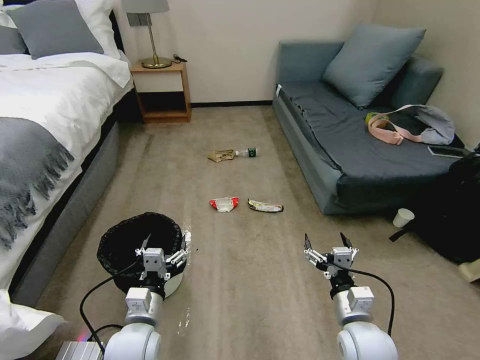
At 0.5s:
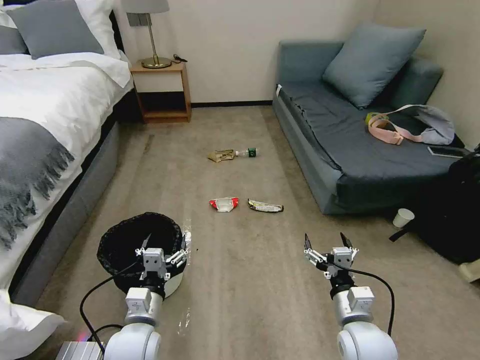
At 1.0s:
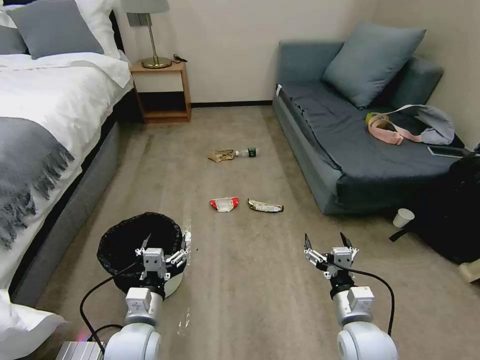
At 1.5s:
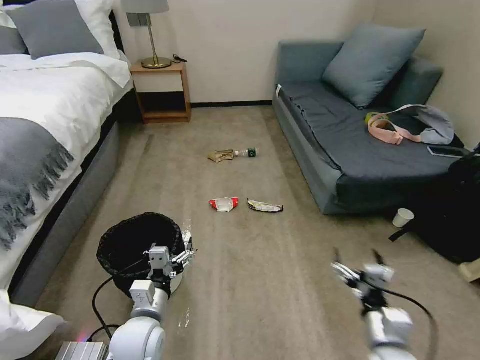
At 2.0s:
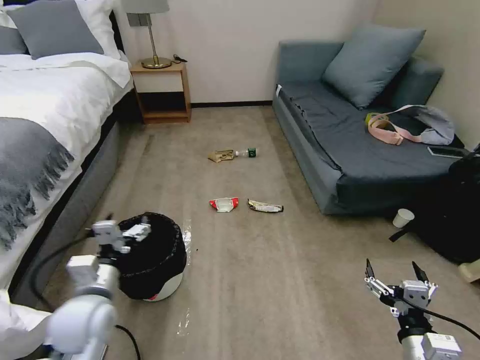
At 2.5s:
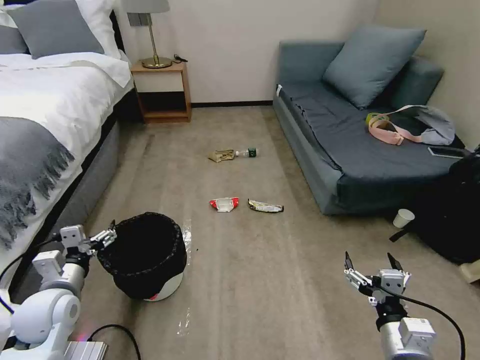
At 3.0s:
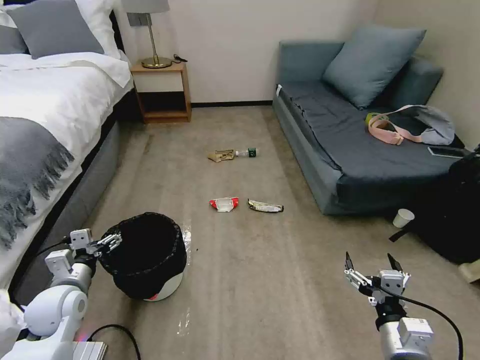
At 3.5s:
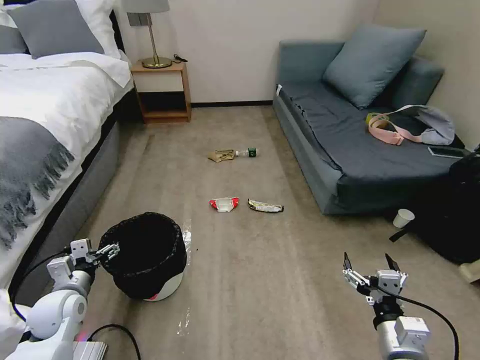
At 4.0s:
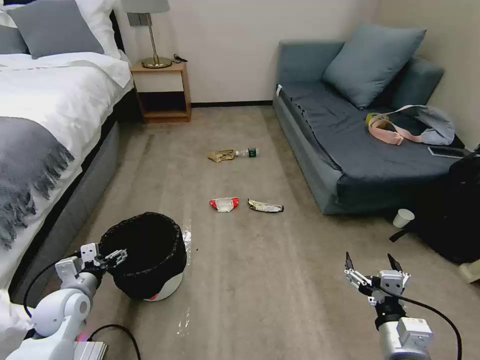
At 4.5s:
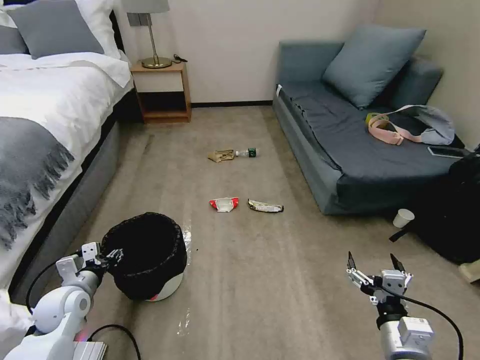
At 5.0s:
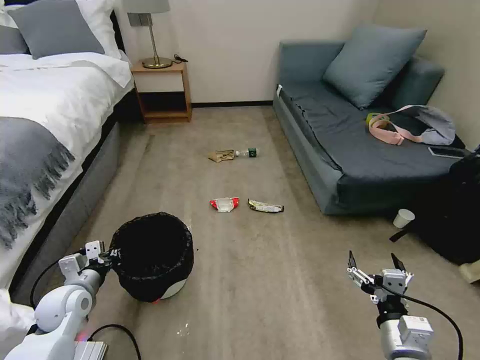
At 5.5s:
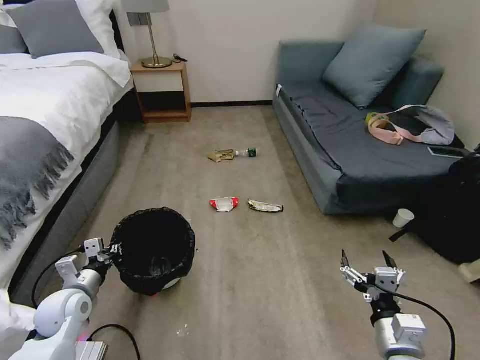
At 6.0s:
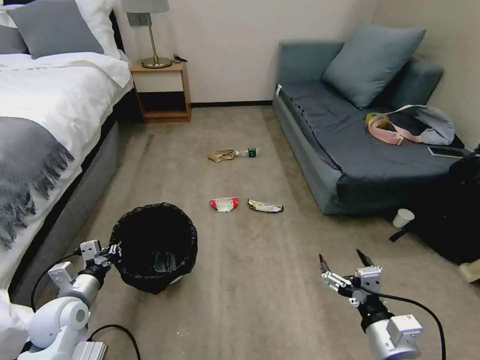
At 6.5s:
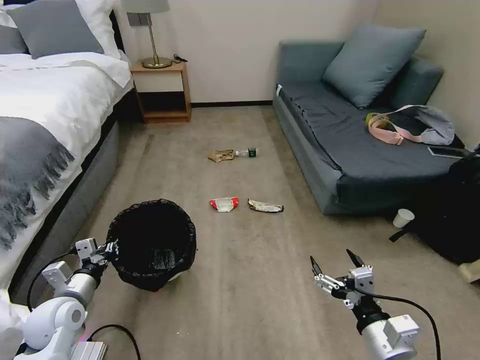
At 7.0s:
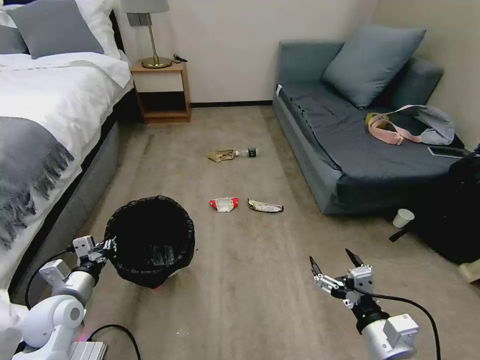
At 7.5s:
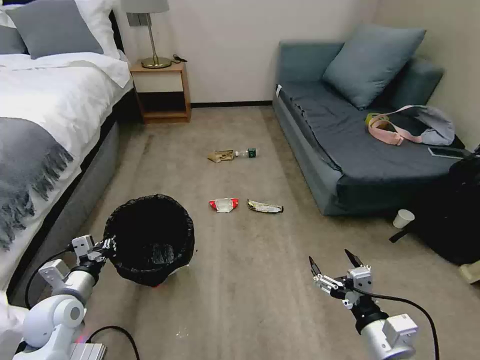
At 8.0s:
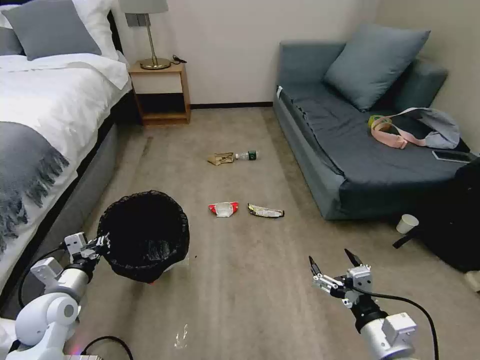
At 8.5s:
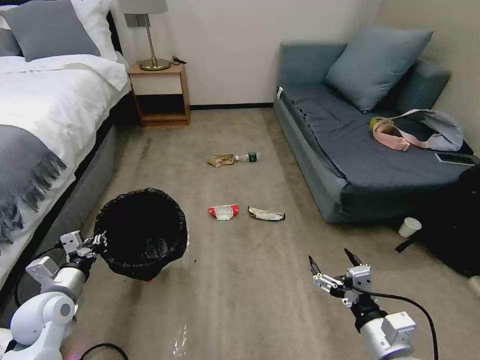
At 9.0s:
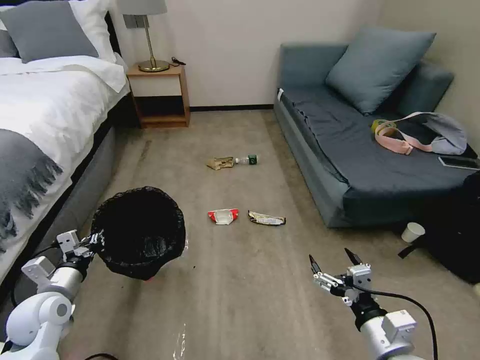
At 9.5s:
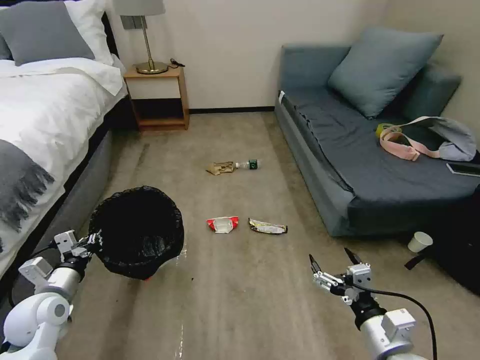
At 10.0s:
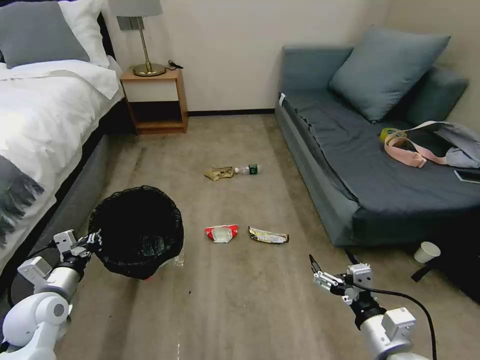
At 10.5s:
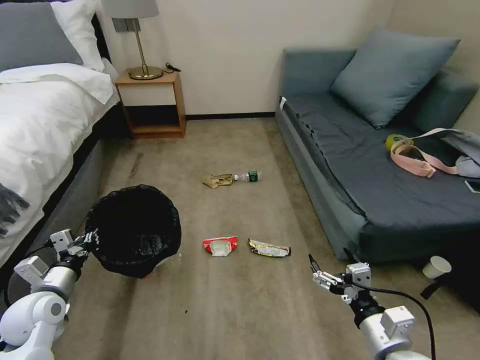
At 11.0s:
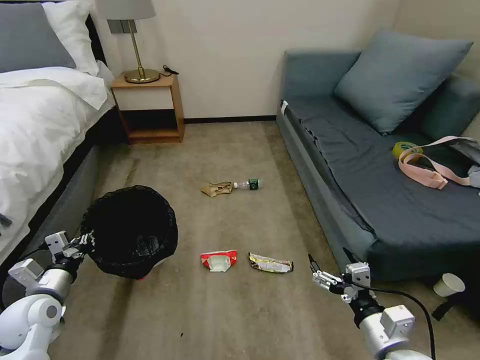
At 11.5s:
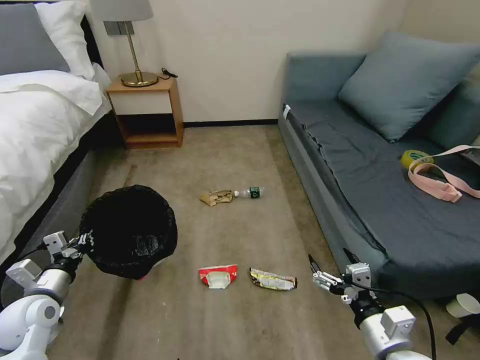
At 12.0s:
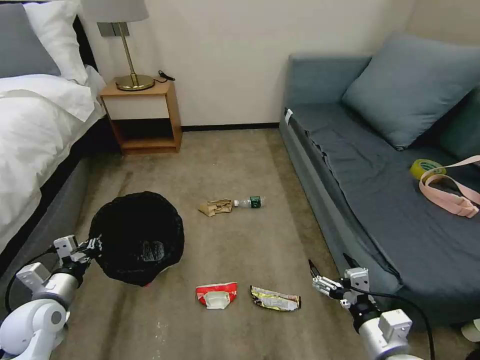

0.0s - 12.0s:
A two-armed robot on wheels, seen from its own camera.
Task of the whole recording: Pick up the trash bin, then pick up the garbage on the floor and place it into the trash bin.
2.0s - 4.0s: The left gripper moves to the left and downward, roughly 15 cm.
4.0s - 6.0s: The left gripper closes its fingers.
6.0s - 8.0s: The grippers make only small movements.

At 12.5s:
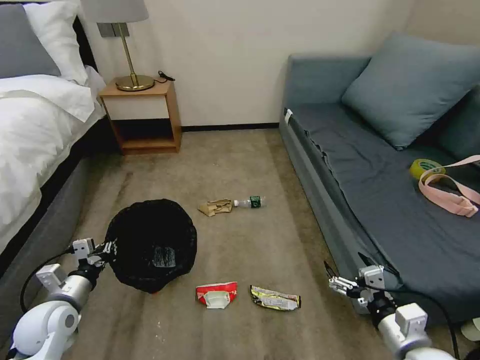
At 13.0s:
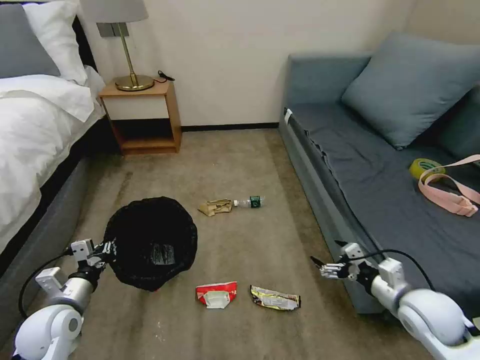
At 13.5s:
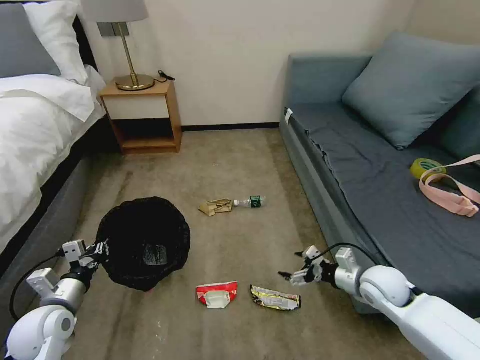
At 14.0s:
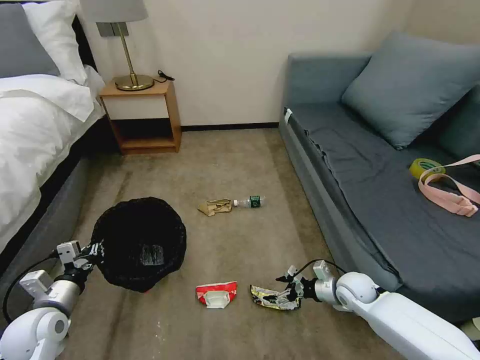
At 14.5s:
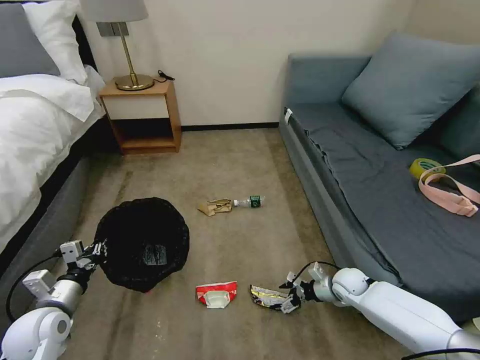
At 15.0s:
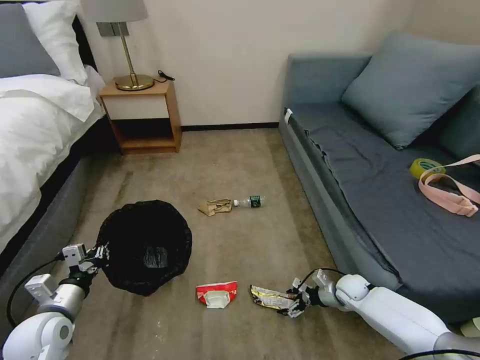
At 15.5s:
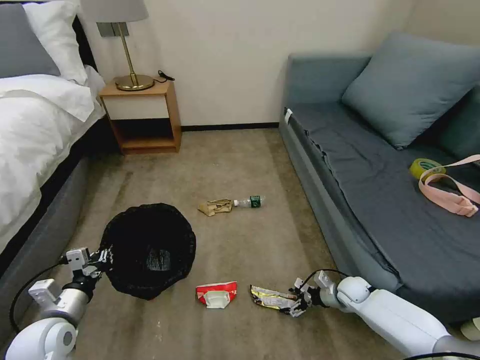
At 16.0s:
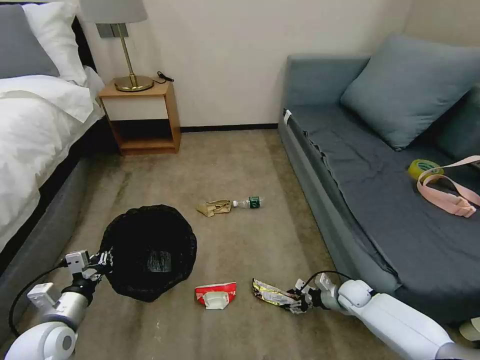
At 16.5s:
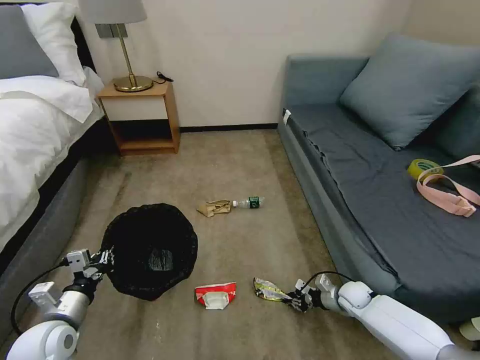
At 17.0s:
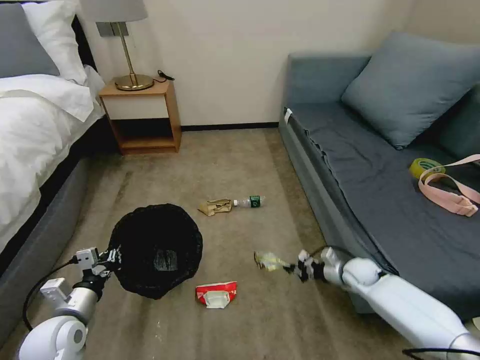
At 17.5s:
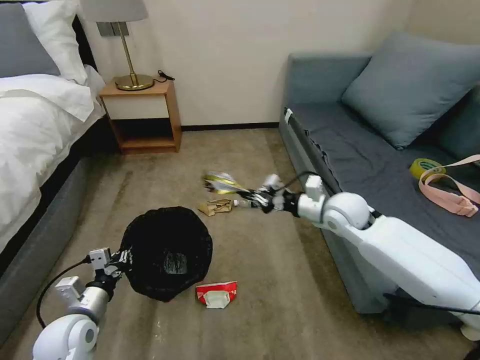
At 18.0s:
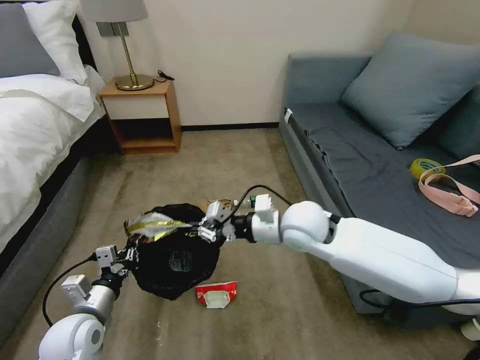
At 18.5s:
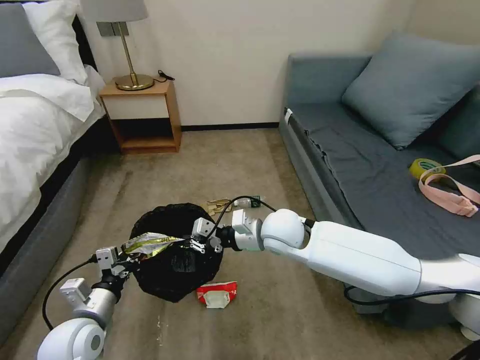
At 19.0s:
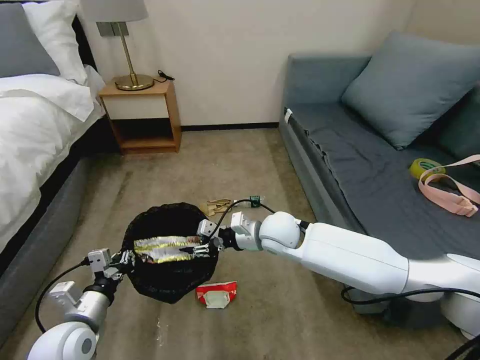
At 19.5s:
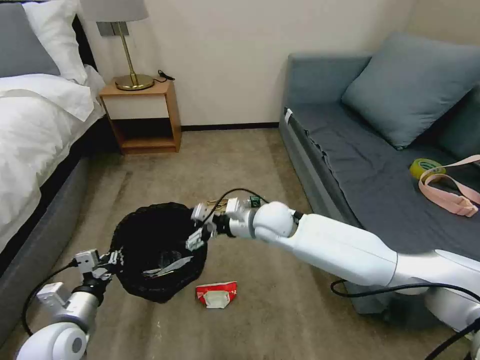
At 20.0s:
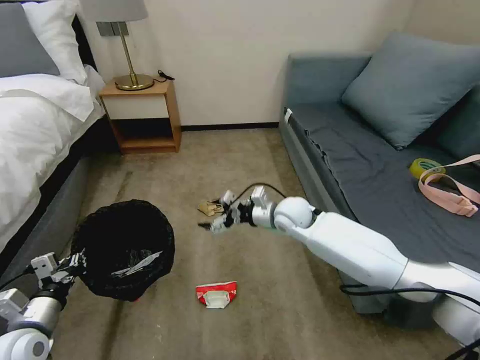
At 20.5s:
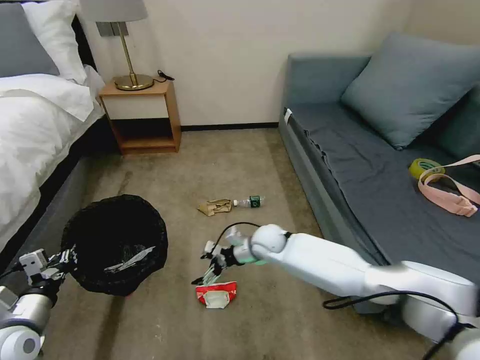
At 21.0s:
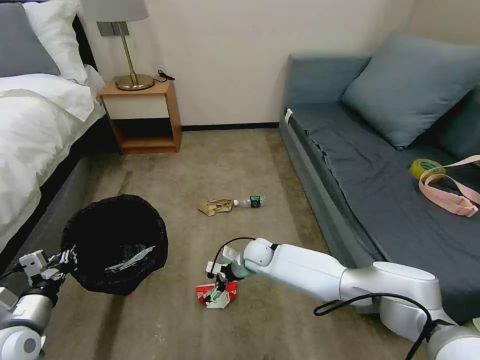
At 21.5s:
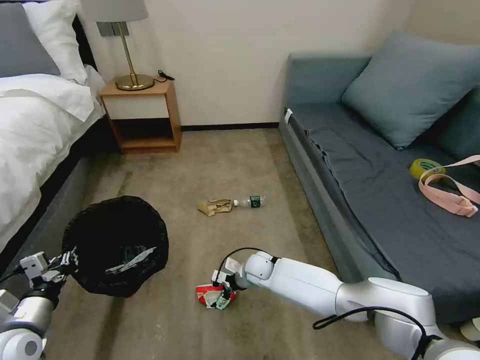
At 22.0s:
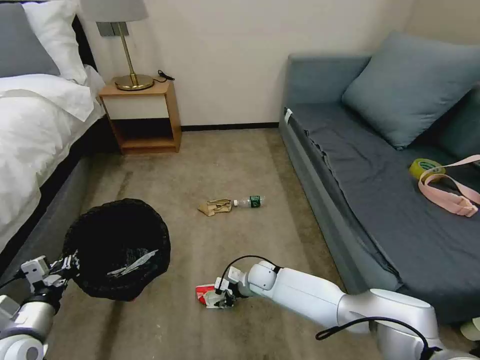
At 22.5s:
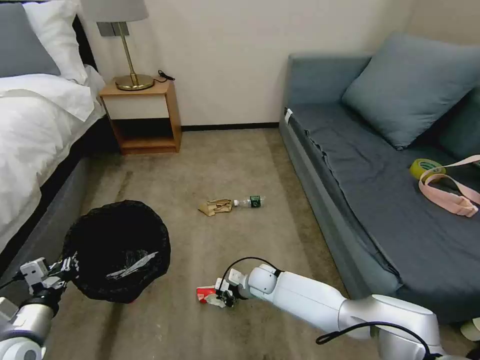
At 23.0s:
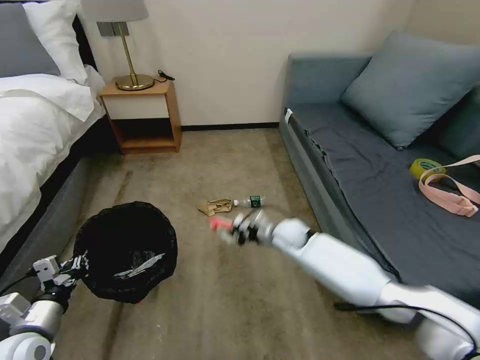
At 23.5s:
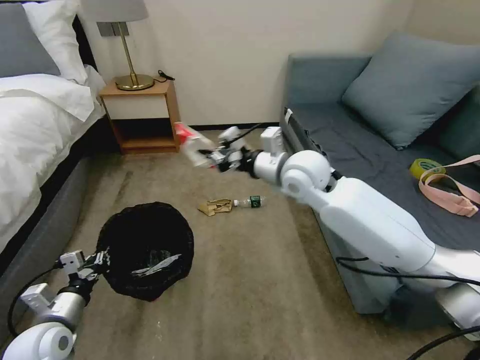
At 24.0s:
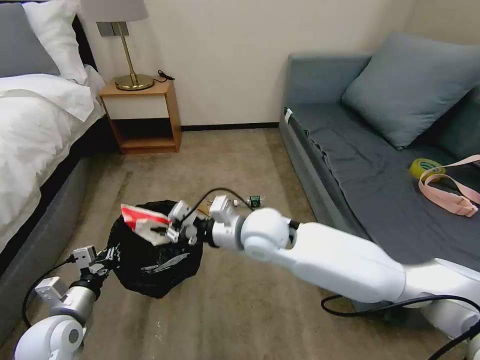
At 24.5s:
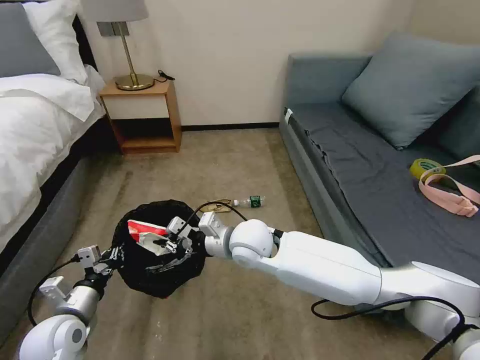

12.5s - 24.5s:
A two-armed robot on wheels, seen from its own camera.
Task of the whole recording: Pick up the trash bin, then pick up the garbage on the floor and place it into the trash bin.
12.5s - 14.5s: The right gripper travels forward and downward by some 30 cm.
14.5s - 16.5s: The right gripper is displaced downward by roughly 5 cm, and closes up.
16.5s - 18.5s: The right gripper shifts about 40 cm upward and to the left. Meanwhile the left gripper moves to the right, about 5 cm.
18.5s - 20.5s: The right gripper travels downward and forward by about 15 cm, and opens its fingers. The left gripper heads to the left, covering some 10 cm.
20.5s - 22.5s: The right gripper heads downward, covering some 15 cm, and closes its fingers.
22.5s - 24.5s: The right gripper goes approximately 25 cm upward, while the left gripper moves to the right, about 5 cm.

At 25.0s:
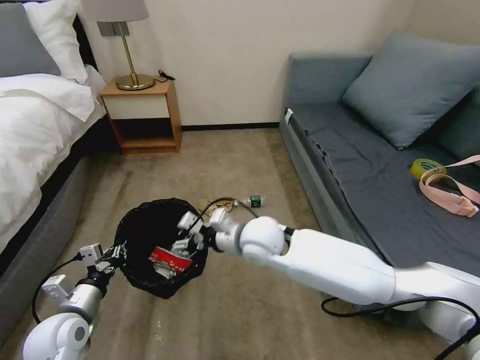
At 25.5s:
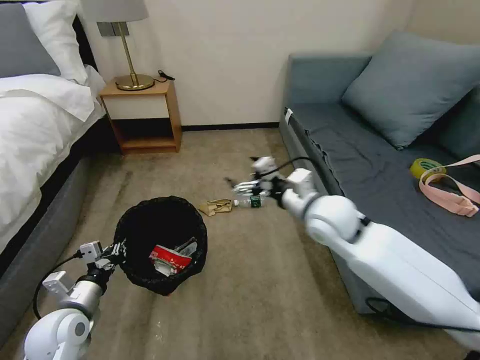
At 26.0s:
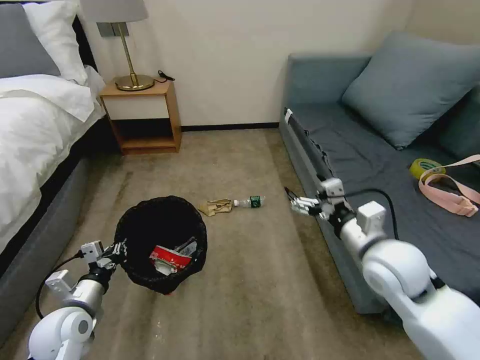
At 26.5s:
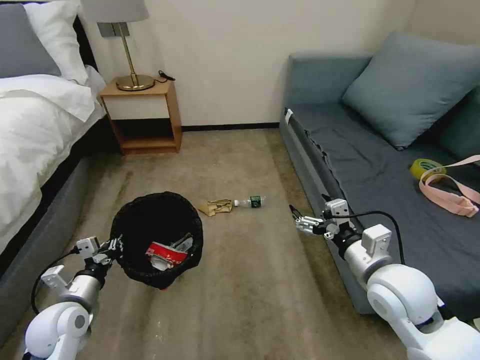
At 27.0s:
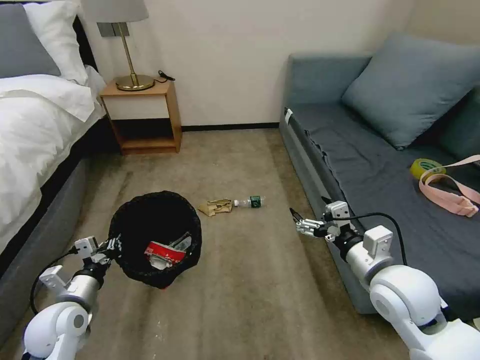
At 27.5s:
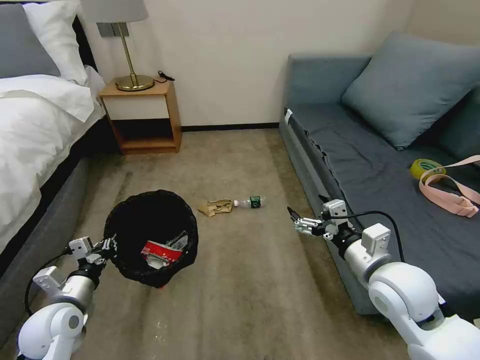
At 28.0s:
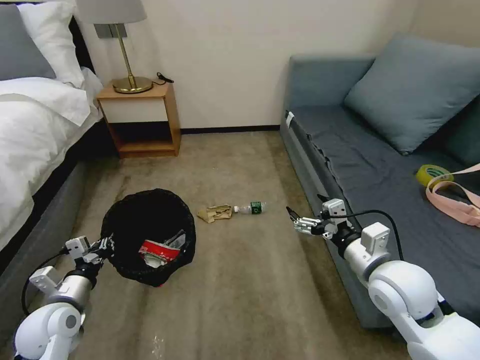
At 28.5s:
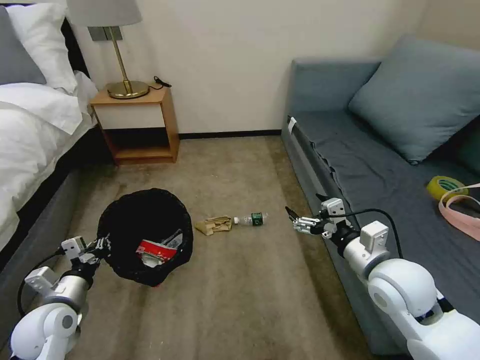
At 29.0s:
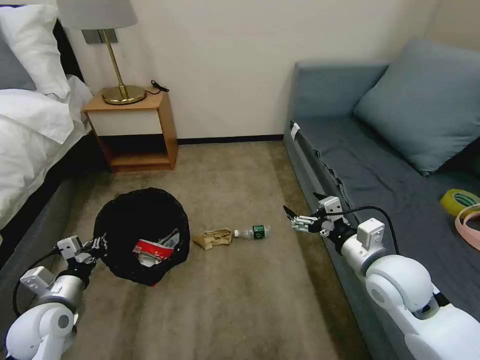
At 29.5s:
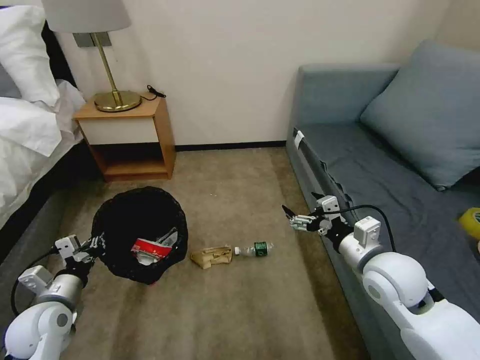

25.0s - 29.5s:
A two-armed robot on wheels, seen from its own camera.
Task of the whole recording: Pick up the trash bin, then pick up the garbage on the floor and place it into the trash bin.
25.0s - 27.0s: The right gripper moves to the right and backward, roughly 25 cm, and opens.
